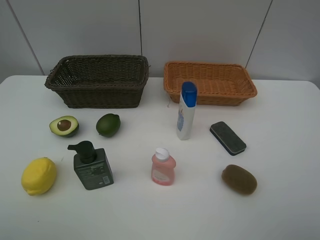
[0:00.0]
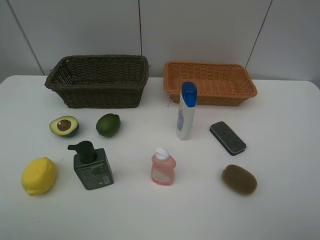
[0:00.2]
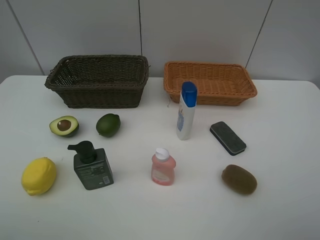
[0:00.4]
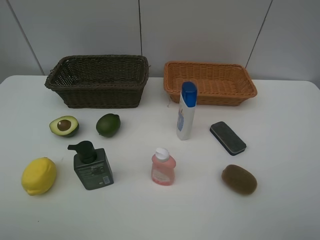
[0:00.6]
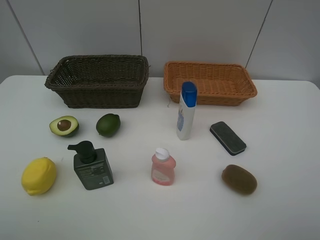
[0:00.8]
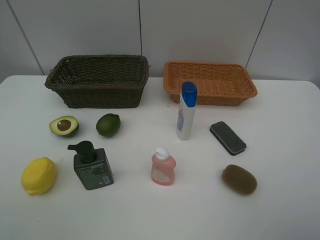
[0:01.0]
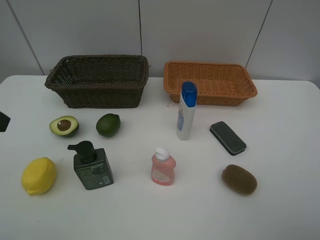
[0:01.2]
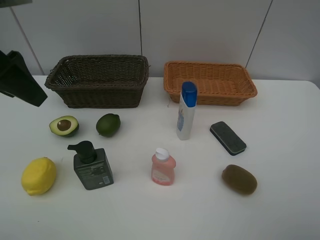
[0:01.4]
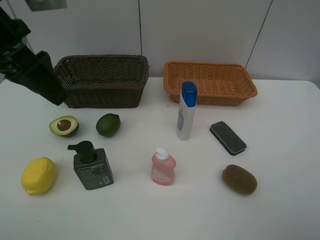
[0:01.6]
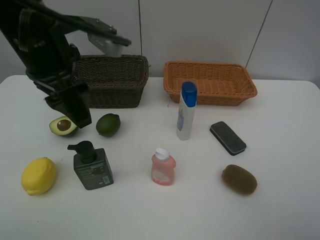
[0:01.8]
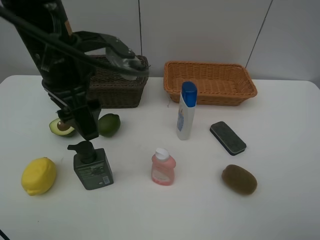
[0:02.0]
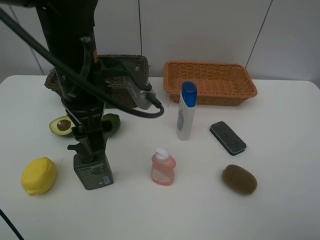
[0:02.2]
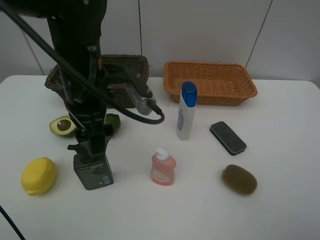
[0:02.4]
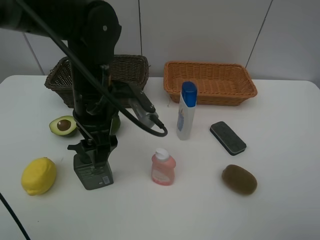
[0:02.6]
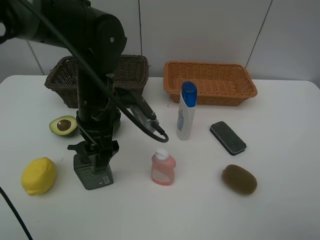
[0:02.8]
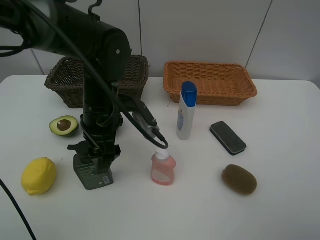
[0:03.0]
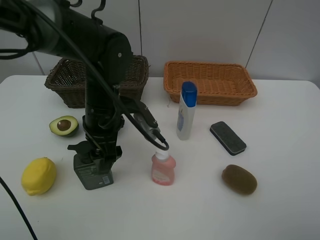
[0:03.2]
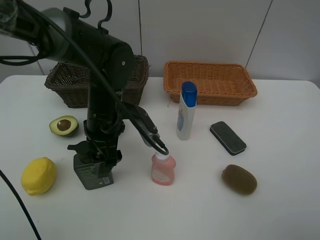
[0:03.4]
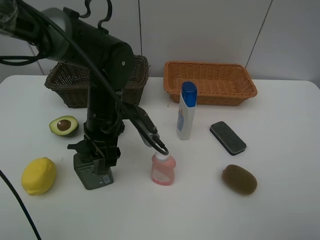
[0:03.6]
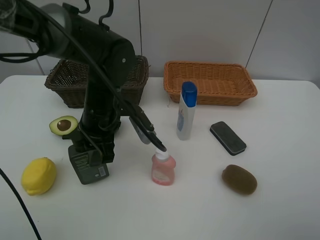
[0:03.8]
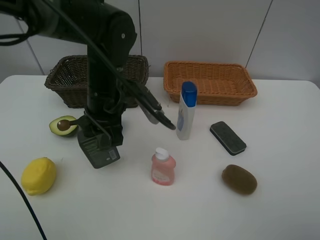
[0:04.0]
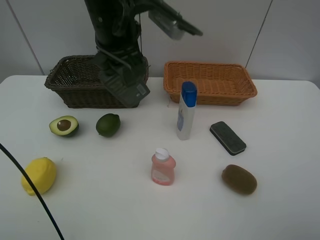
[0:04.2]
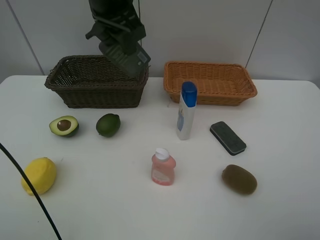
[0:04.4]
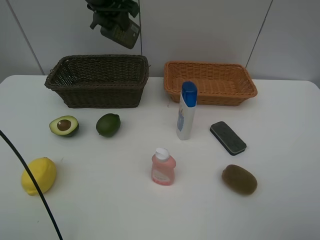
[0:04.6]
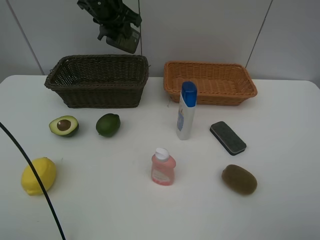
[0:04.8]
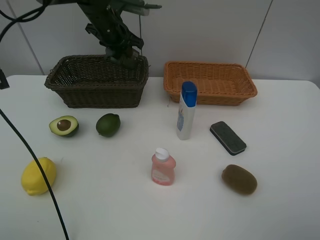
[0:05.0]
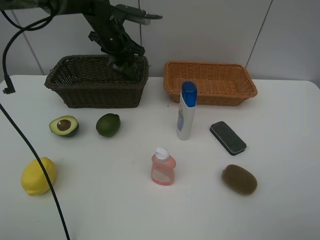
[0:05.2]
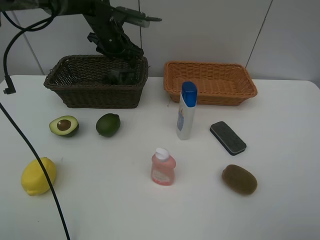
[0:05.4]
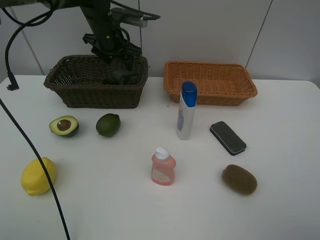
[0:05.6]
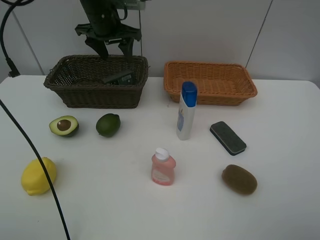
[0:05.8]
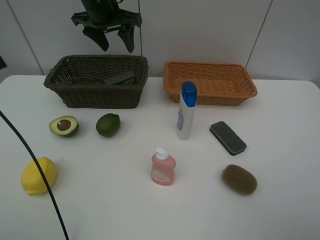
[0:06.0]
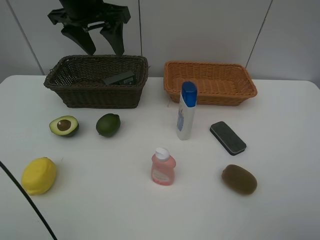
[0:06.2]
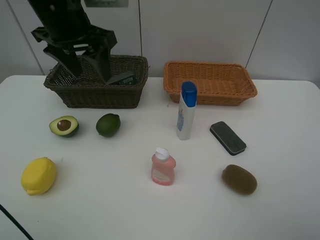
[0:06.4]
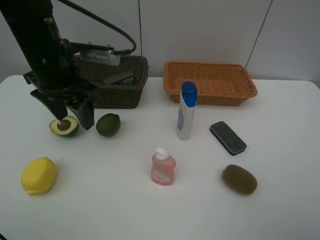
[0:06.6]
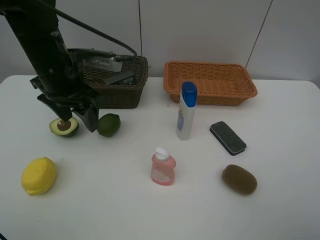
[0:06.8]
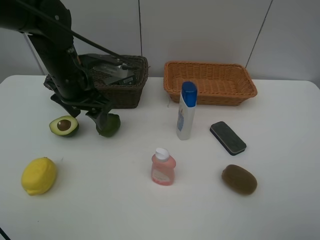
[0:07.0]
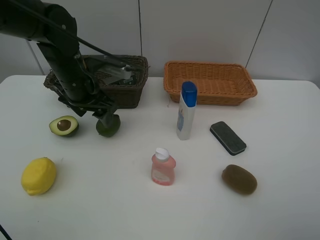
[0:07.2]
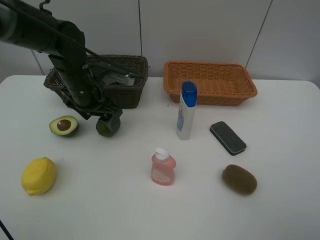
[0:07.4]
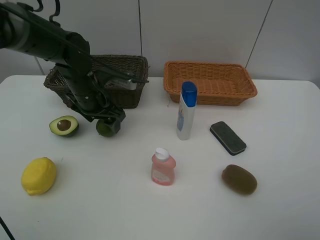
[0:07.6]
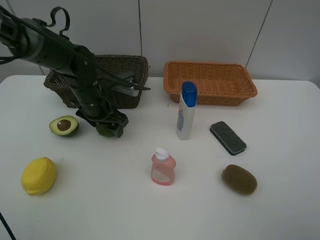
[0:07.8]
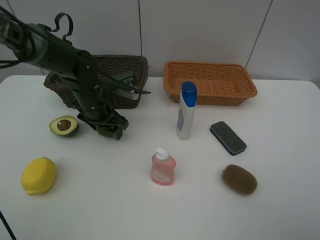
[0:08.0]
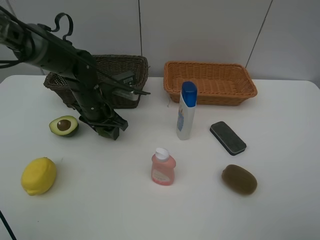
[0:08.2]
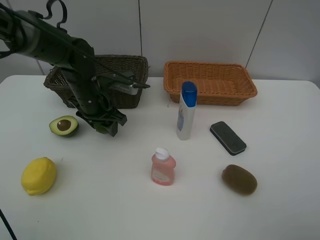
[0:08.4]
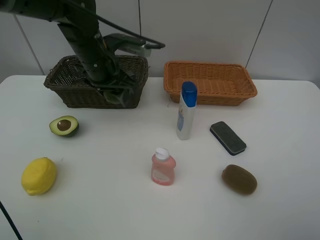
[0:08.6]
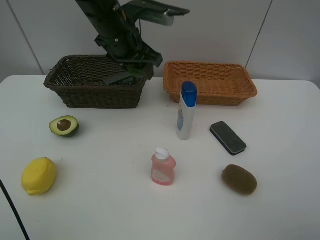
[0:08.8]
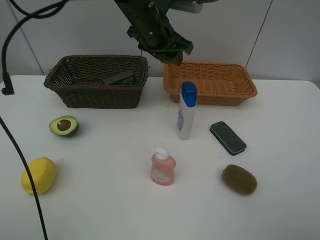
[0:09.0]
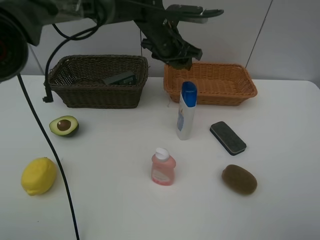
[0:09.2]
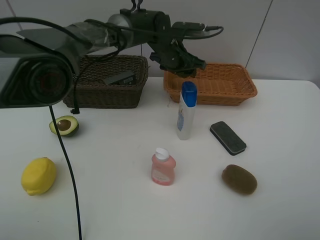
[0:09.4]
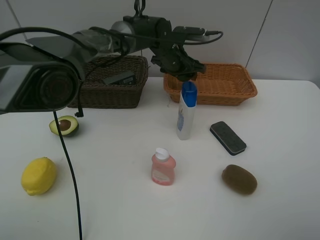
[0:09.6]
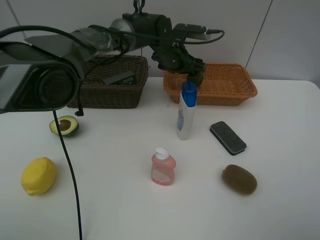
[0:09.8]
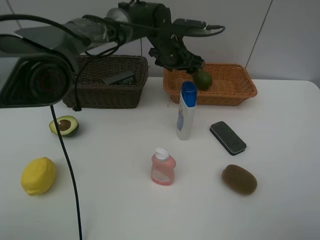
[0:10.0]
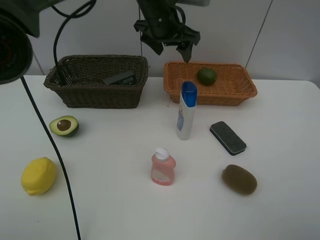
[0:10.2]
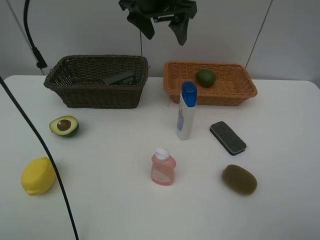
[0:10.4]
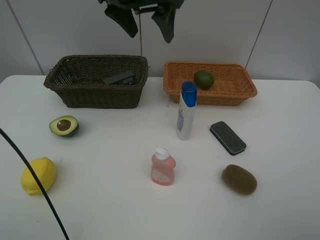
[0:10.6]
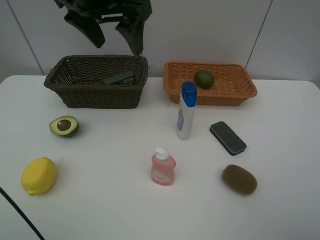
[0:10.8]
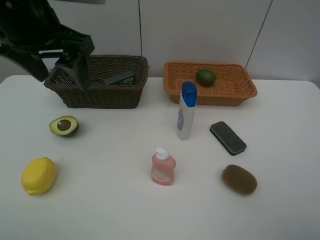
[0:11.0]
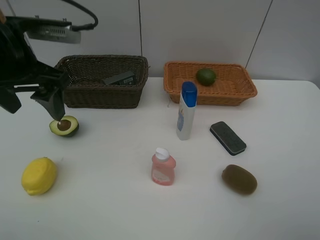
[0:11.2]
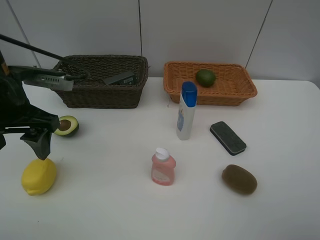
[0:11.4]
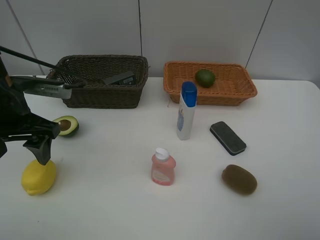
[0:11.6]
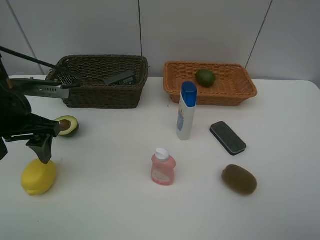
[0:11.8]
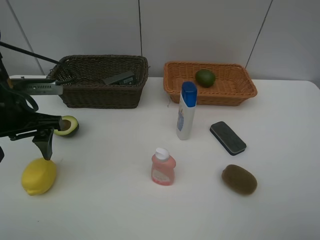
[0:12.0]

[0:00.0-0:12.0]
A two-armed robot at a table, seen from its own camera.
Task of the whole recording: Place multiple objects separately in different baskets.
Step, 0:00.0 to 0:03.8: Pick up the hard facial cleanser with left gripper.
Step, 0:04.0 to 0:05.6: Place the hard facial cleanser in the dark basket with left gripper.
Step, 0:05.8 to 0:08.4: Pick up the lime with left gripper.
Step, 0:08.6 to 0:10.0: Place the lime in the light basket with left gripper.
0:00.0 to 0:01.6: The left gripper heads forward, covering about 25 cm.
0:01.6 to 0:03.0: The left gripper moves downward and to the right, approximately 20 cm.
0:03.0 to 0:04.4: The left gripper moves upward and forward, some 20 cm, and closes.
0:04.4 to 0:06.0: The left gripper is displaced forward by approximately 10 cm, goes downward and returns, approximately 15 cm each way, and opens its fingers.
0:06.0 to 0:07.6: The left gripper goes about 20 cm downward and backward.
0:07.6 to 0:09.0: The left gripper shifts some 20 cm to the right, upward and forward, and closes.
0:09.0 to 0:10.4: The left gripper moves upward, approximately 10 cm, and opens up.
0:10.4 to 0:12.0: The left gripper is displaced to the left, backward and downward by approximately 30 cm.

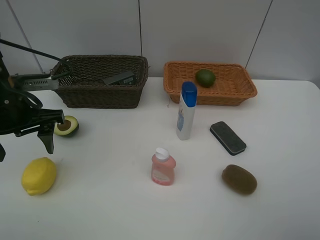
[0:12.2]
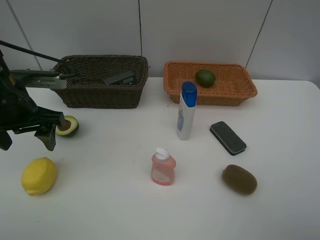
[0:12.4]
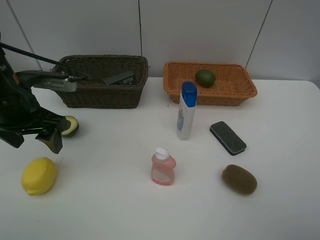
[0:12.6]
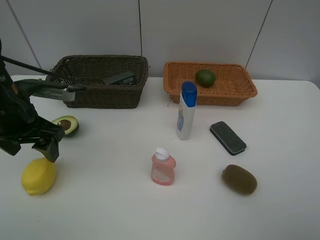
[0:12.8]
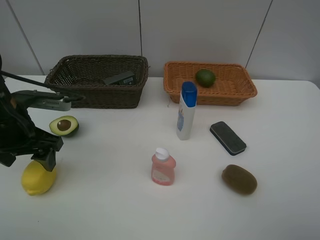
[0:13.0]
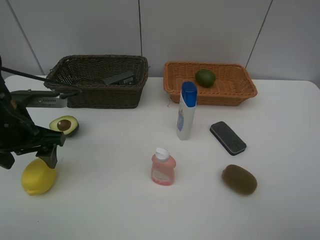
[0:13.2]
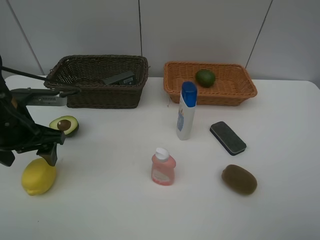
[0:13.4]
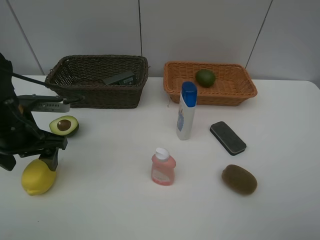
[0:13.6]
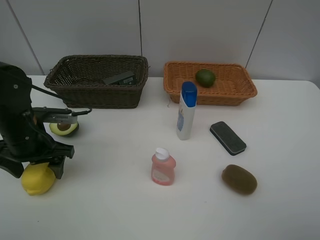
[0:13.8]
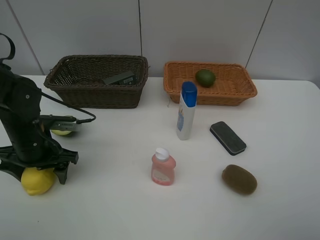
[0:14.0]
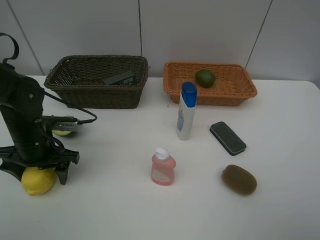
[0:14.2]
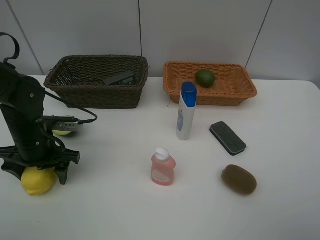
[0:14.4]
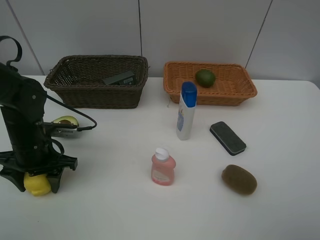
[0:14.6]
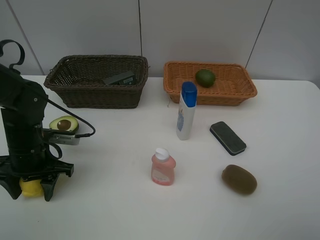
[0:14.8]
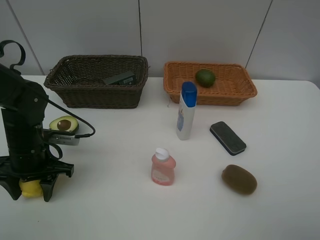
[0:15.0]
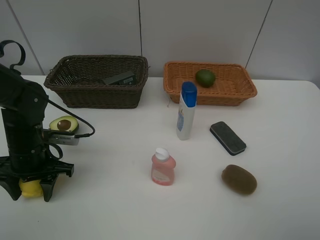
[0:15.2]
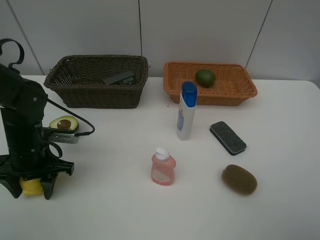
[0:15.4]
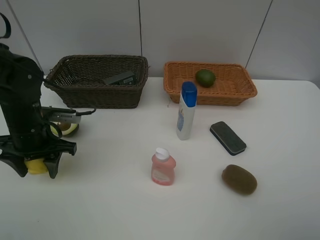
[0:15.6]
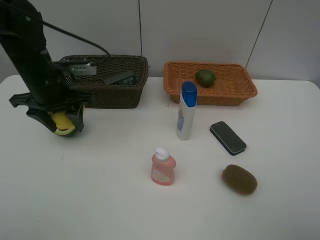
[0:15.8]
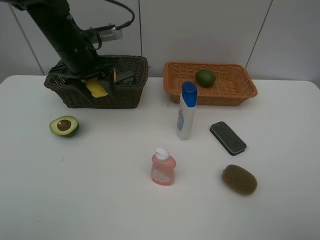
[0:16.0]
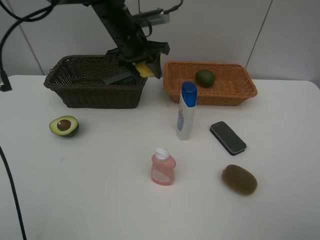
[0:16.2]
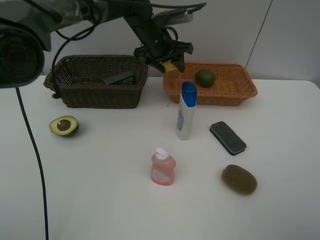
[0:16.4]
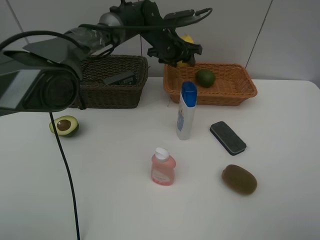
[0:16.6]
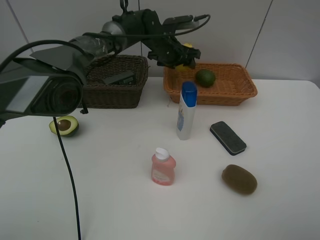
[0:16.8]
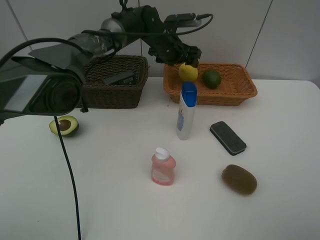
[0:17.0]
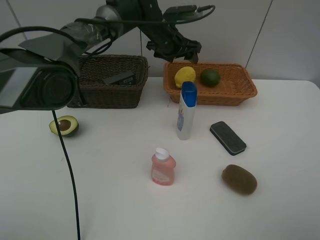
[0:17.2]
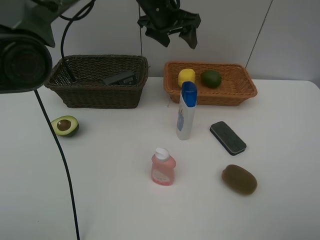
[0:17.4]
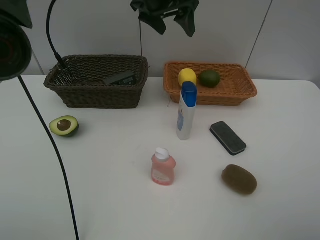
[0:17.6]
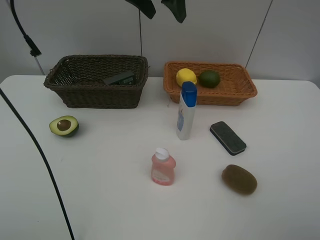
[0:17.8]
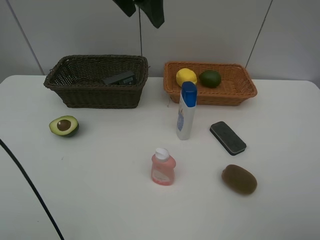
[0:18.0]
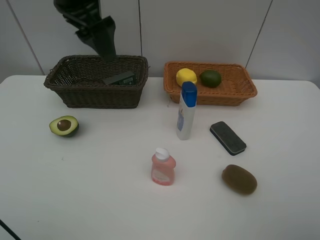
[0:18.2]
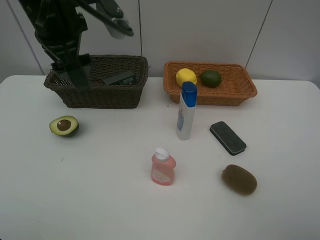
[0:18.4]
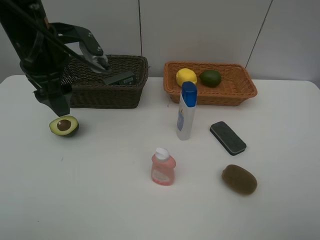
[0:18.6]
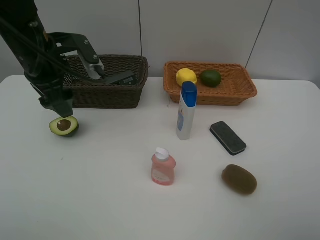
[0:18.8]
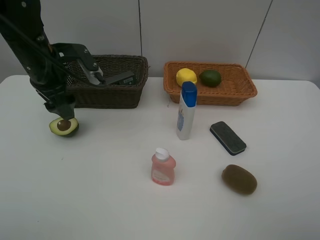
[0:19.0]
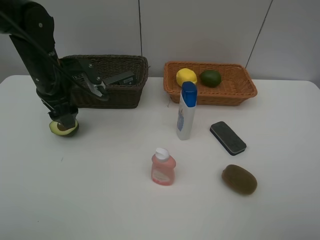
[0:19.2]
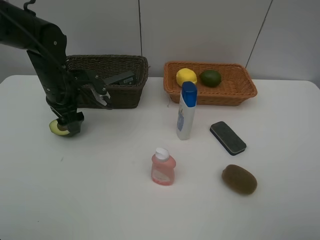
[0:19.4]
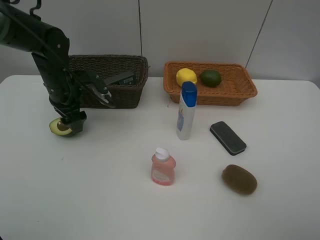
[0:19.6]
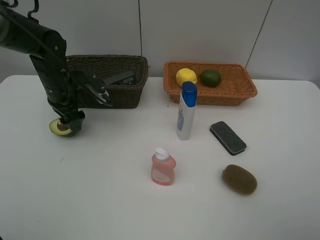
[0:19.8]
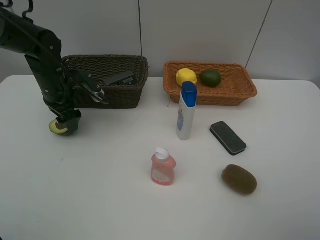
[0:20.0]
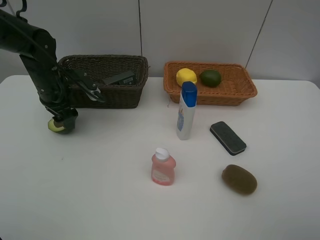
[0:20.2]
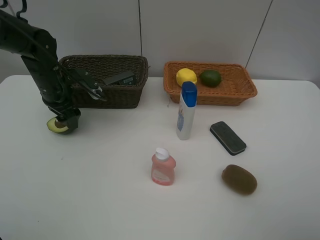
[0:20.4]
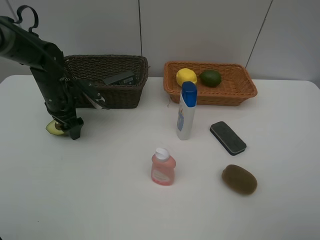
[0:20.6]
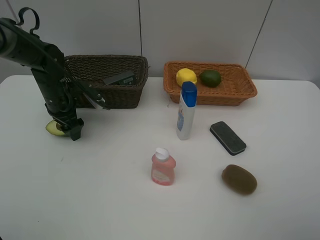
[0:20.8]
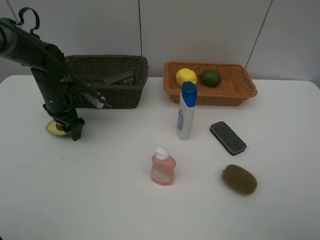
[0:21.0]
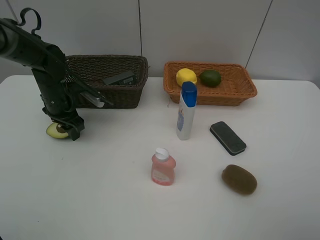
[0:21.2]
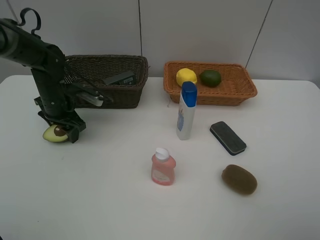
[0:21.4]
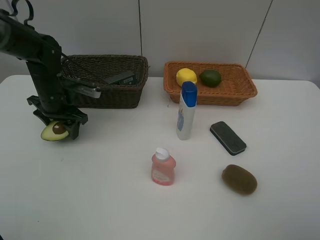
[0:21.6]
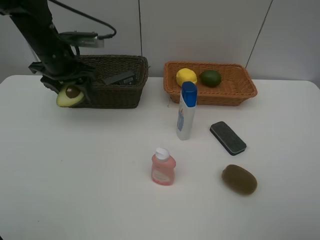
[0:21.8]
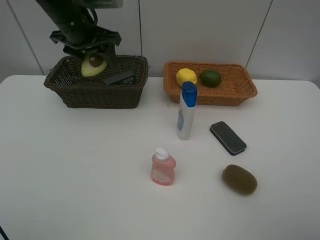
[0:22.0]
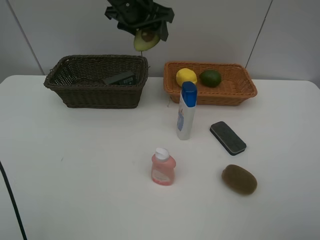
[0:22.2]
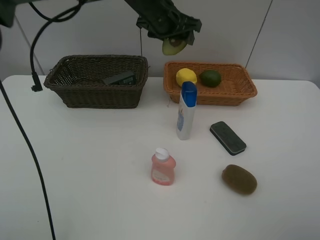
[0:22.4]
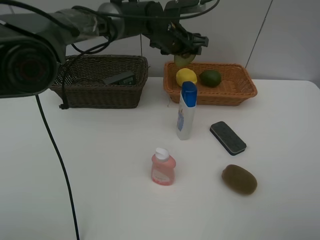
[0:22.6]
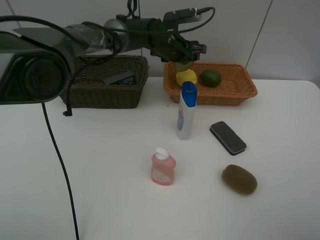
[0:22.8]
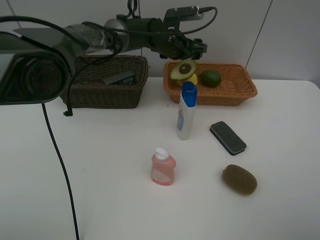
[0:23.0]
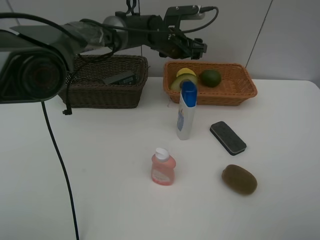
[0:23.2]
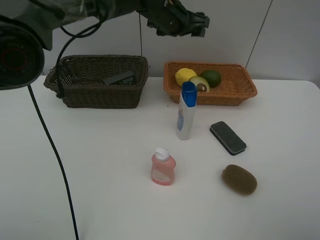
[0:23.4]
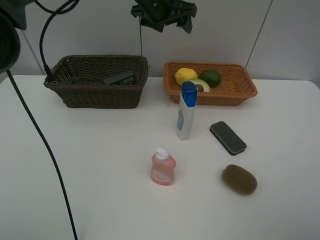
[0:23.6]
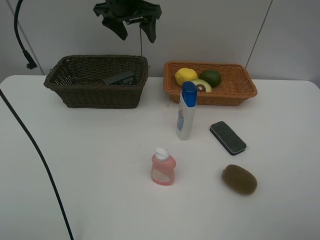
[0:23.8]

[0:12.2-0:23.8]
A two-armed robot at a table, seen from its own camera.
Task of the whole recording: Place multiple objects separately in different baskets.
Step, 0:12.2 to 0:15.6: Pick up the lemon with left gripper.
Step, 0:15.8 to 0:16.8: Place the lemon in the light basket with left gripper.
Step, 0:17.0 to 0:21.6: Pick up the avocado with left gripper.
Step, 0:21.8 to 0:23.2: Place the avocado in the light basket with left gripper.
0:12.2 to 0:13.6: The left gripper heads downward, covering some 5 cm.
0:13.6 to 0:15.0: The left gripper is displaced downward by approximately 5 cm, and closes up.
0:15.0 to 0:16.6: The left gripper shifts about 35 cm forward and to the right.
0:16.6 to 0:18.0: The left gripper is displaced upward, backward and to the left by roughly 25 cm, and opens up.
0:18.0 to 0:19.4: The left gripper is displaced downward and to the left by roughly 25 cm.
0:19.4 to 0:21.0: The left gripper is displaced downward by approximately 5 cm.
0:21.0 to 0:22.4: The left gripper goes roughly 30 cm to the right and upward.
0:22.4 to 0:23.8: The left gripper is displaced to the left and upward by some 10 cm.
